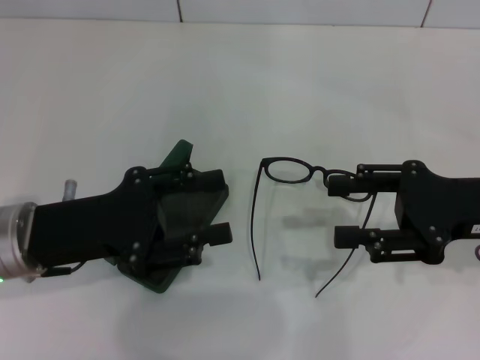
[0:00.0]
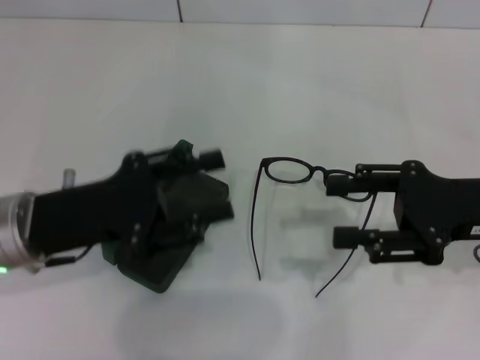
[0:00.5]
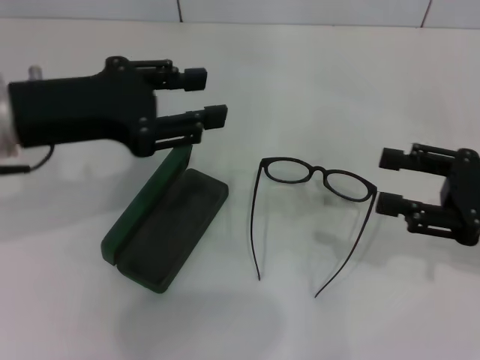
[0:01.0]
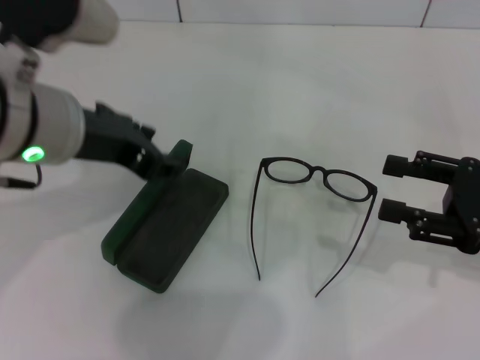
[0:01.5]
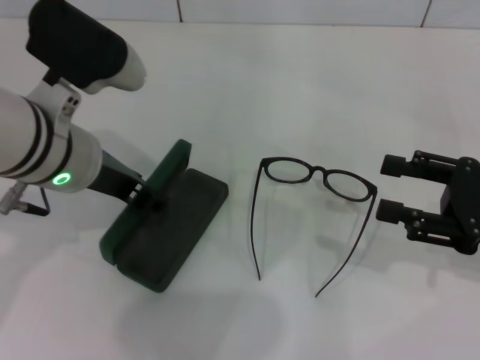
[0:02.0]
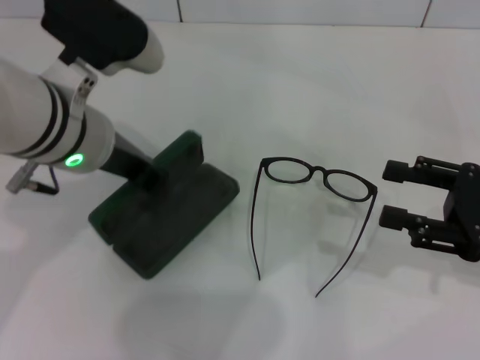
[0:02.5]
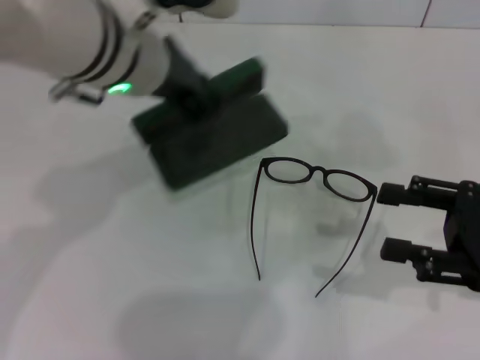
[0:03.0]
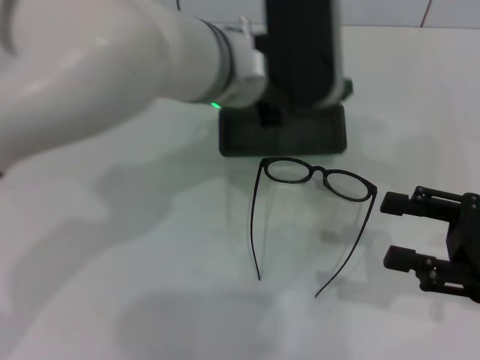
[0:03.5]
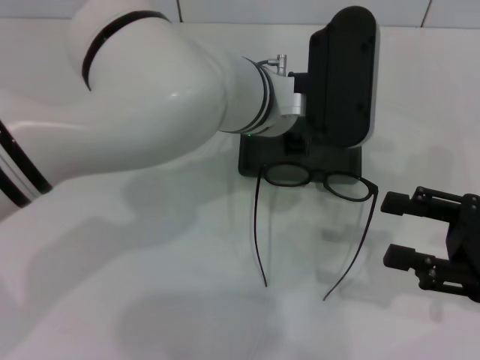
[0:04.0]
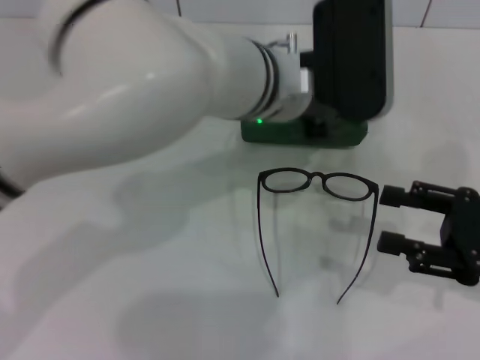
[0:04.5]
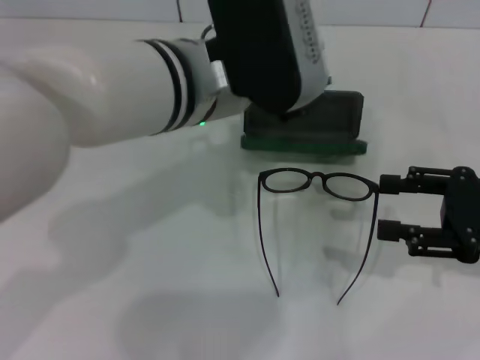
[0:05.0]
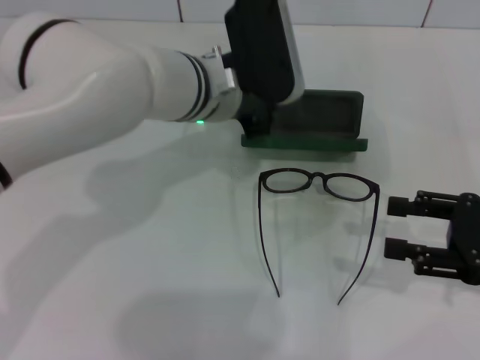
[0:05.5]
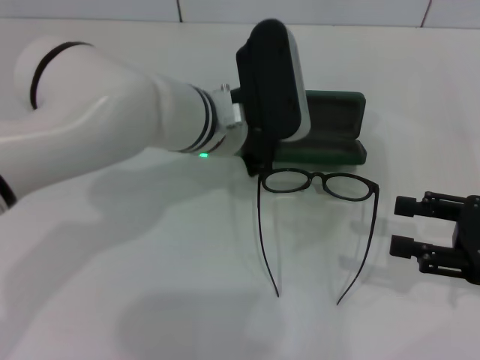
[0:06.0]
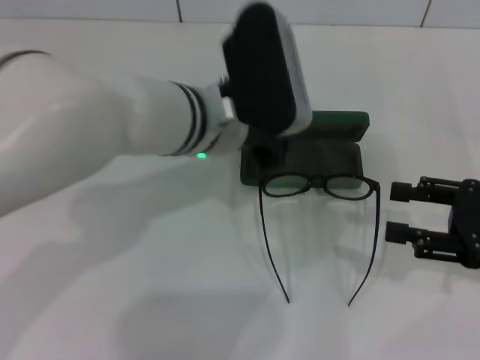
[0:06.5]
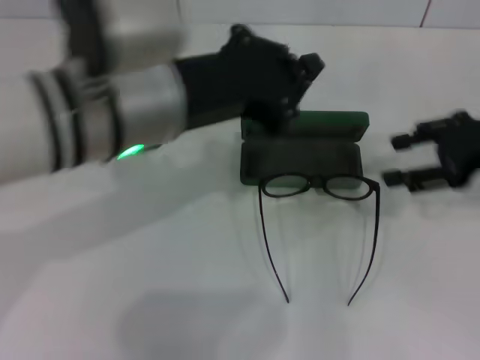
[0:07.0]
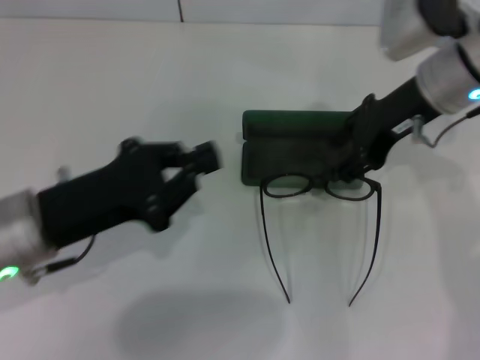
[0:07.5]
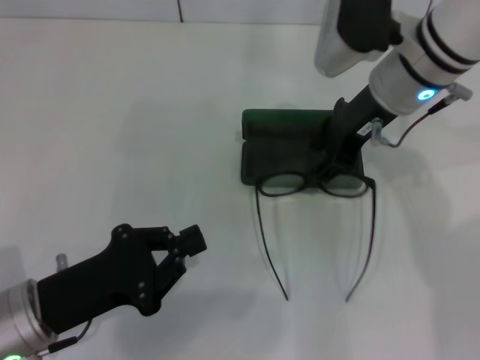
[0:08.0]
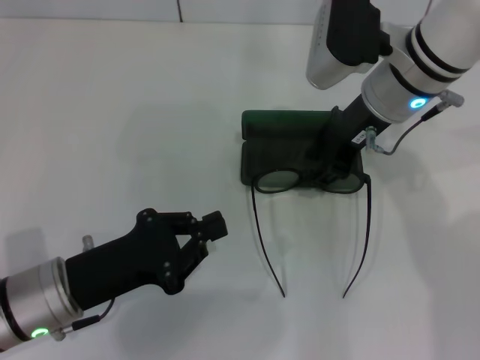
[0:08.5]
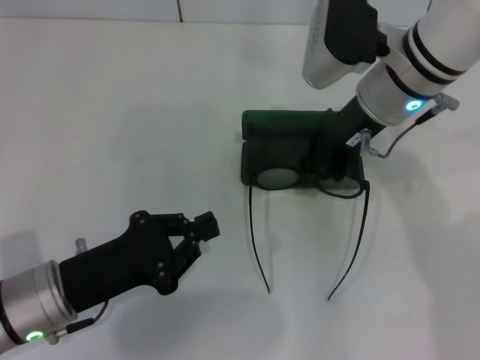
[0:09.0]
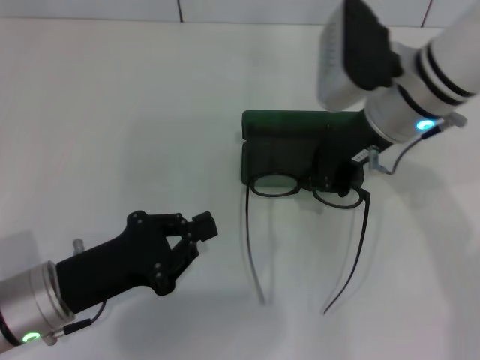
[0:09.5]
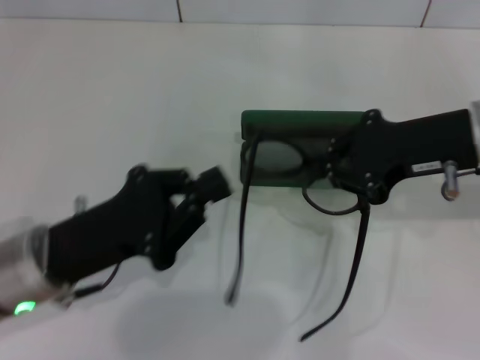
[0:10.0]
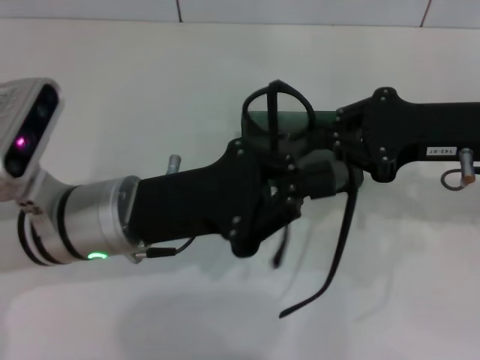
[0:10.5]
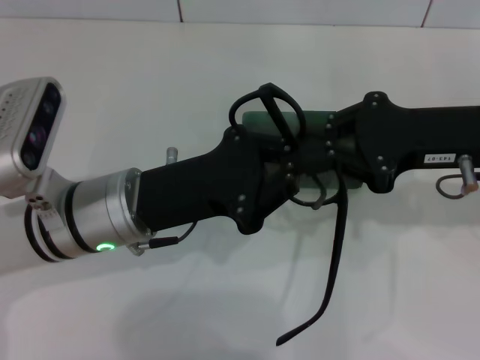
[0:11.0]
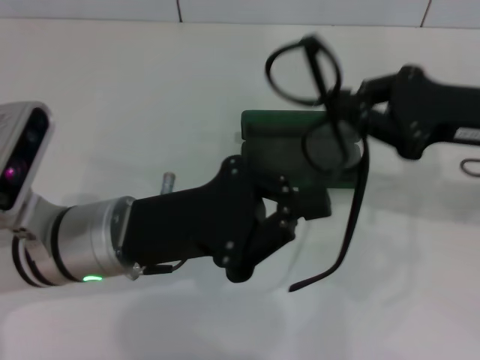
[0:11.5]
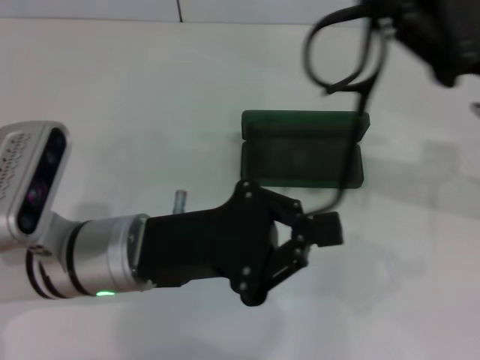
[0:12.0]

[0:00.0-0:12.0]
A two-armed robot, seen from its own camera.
Step, 0:00.0 to 0:02.0: Grab the glasses case with your left hand.
Step, 0:02.5 to 0:05.0: Place the glasses case in the center of the table with your left hand.
Step, 0:05.5 to 0:09.5: Grab the eyeglass frame with your right hand.
0:00.0 to 0:02.0: The left gripper travels upward, to the right and forward by about 10 cm. The right gripper changes place by some 5 cm.
0:02.0 to 0:04.0: The left gripper shifts some 15 cm to the right, and closes up.
0:04.0 to 0:06.0: The left gripper changes place by roughly 5 cm.
0:06.0 to 0:08.0: The right gripper goes roughly 25 cm to the left, forward and upward, while the left gripper moves backward, to the left and downward, about 25 cm.
0:08.0 to 0:10.0: The right gripper goes some 10 cm to the right and backward, and closes up. The left gripper shifts by about 5 cm.
0:10.0 to 0:12.0: The left gripper moves to the right, approximately 5 cm.

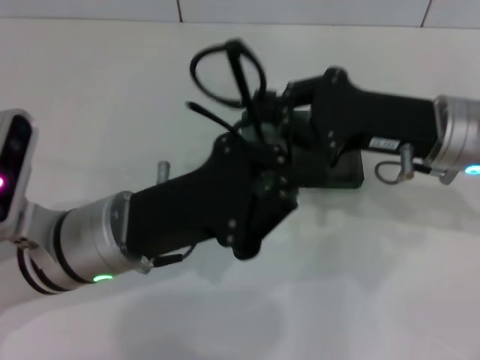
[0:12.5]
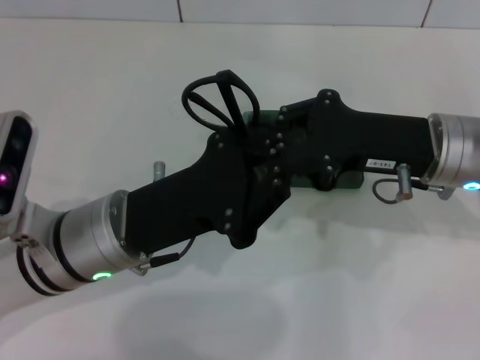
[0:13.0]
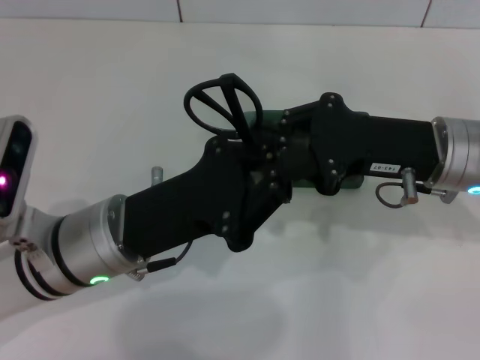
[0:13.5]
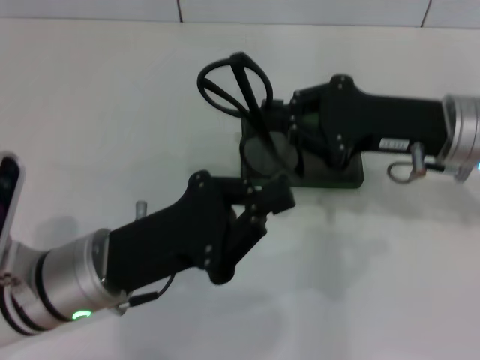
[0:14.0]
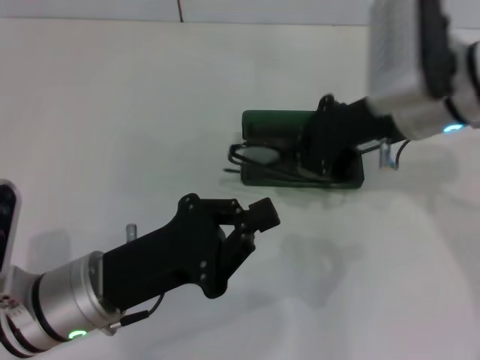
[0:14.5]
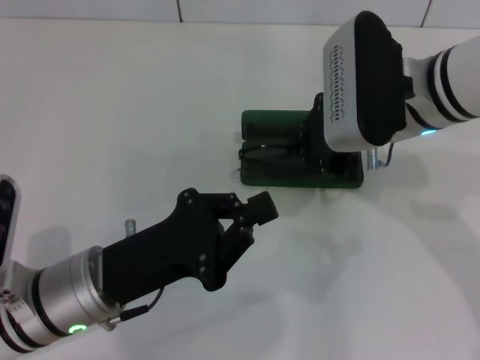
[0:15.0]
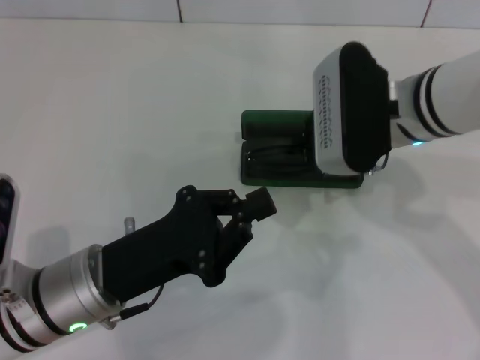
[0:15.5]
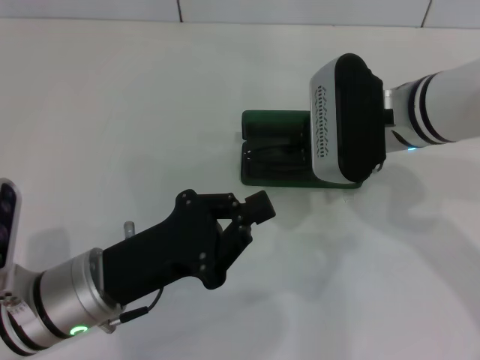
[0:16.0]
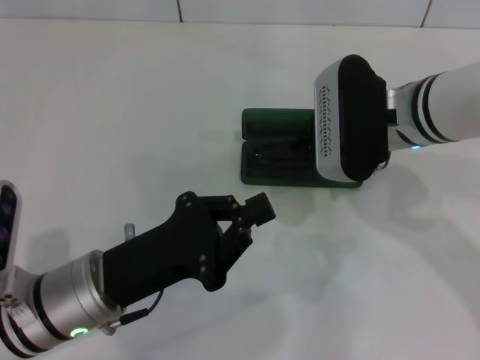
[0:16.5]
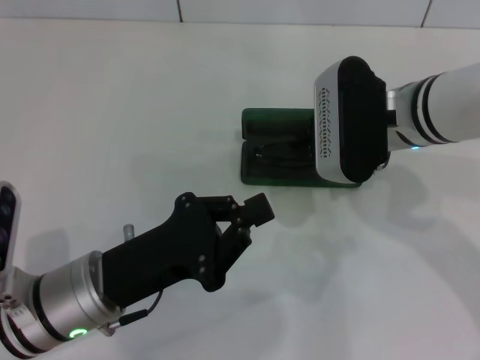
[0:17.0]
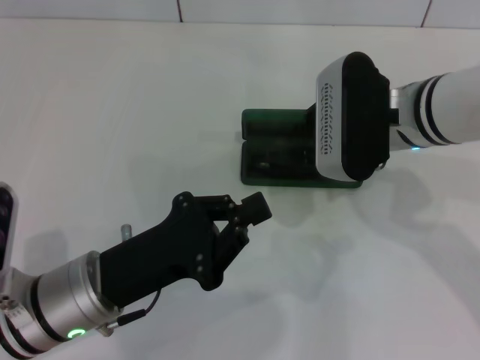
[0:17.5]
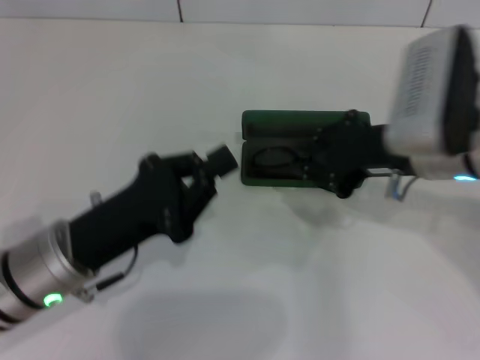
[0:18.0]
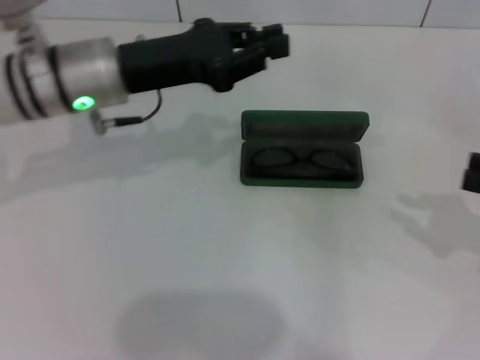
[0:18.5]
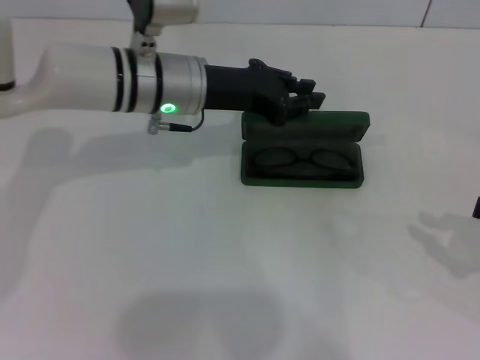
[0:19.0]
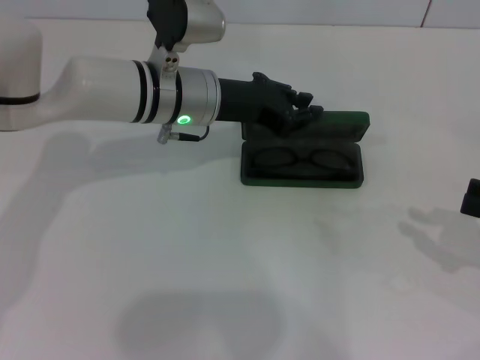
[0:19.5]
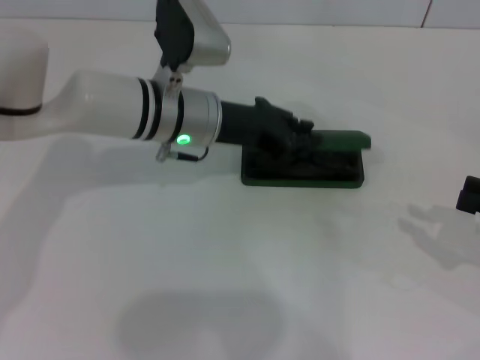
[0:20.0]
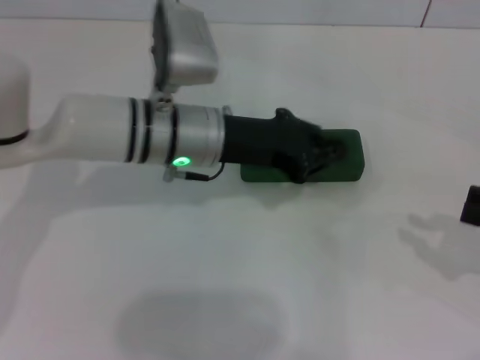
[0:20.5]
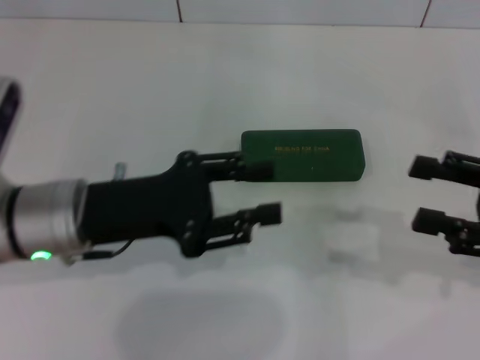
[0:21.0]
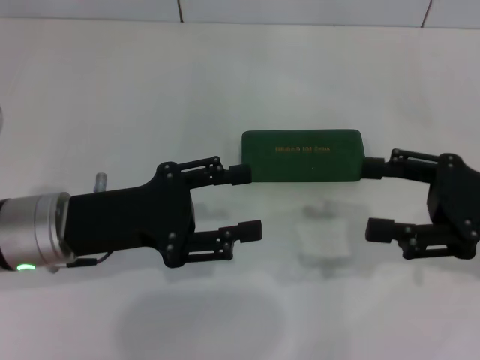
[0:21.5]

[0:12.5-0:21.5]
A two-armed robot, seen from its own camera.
Step, 0:14.0 to 0:17.5: Put the glasses into the case with your right hand.
Step, 0:18.5 to 0:21.0: Close the glasses case with your left hand.
0:12.5 to 0:14.5: The right gripper moves some 5 cm; the left gripper ends up roughly 5 cm from where it was.
0:17.0 to 0:19.5: The left gripper travels forward by approximately 20 cm. The right gripper moves to the right and backward, about 25 cm.
0:19.5 to 0:21.5: The right gripper moves to the left, roughly 10 cm, and opens its fingers. The left gripper heads backward and to the left, covering about 20 cm, and opens.

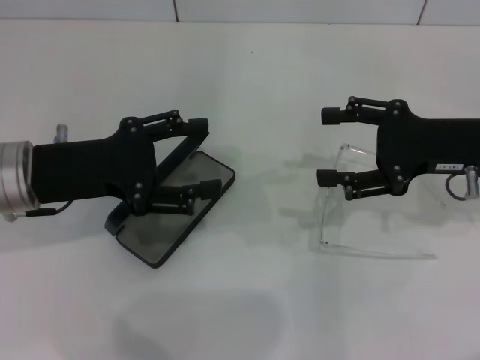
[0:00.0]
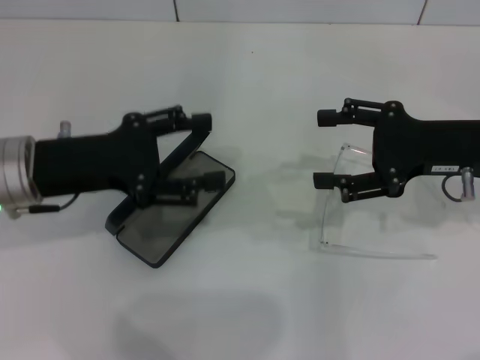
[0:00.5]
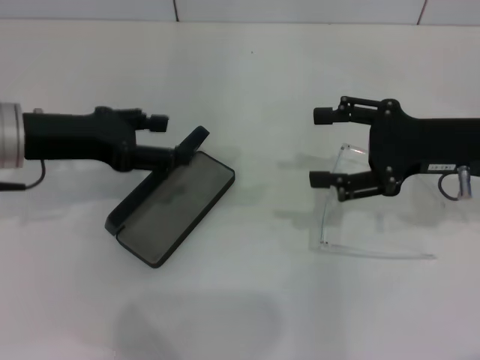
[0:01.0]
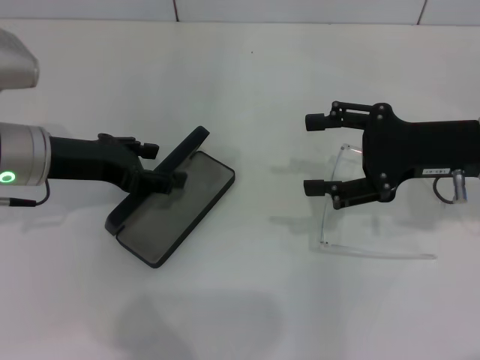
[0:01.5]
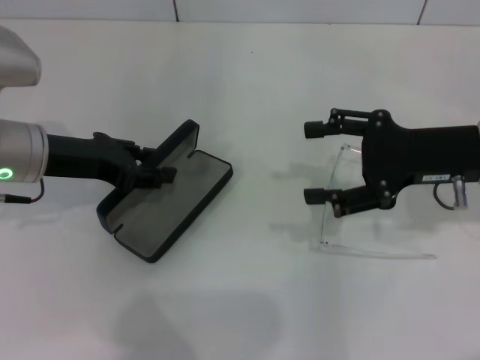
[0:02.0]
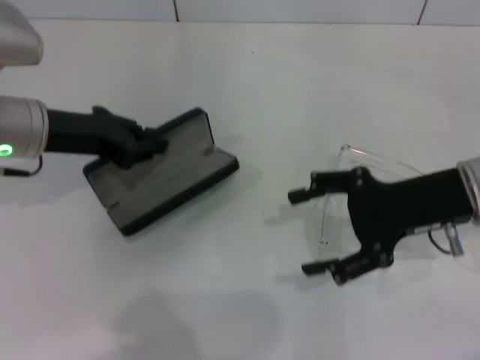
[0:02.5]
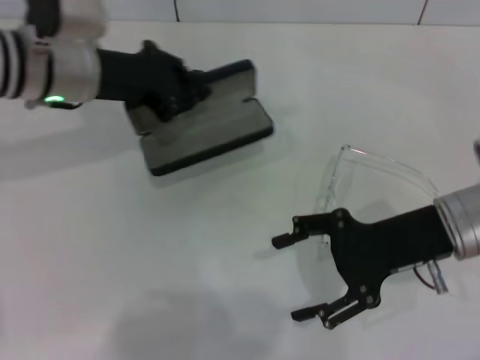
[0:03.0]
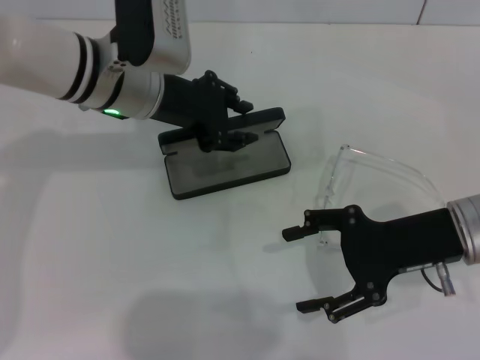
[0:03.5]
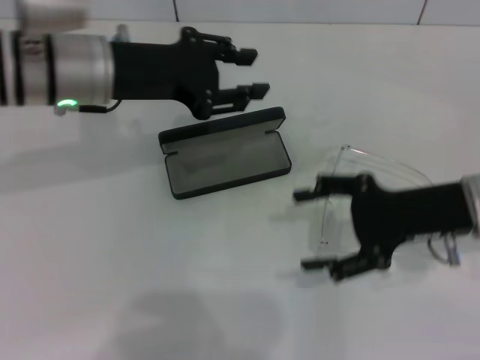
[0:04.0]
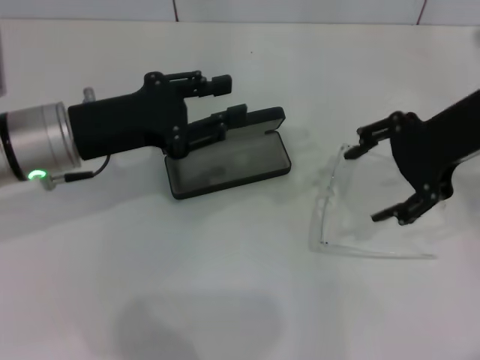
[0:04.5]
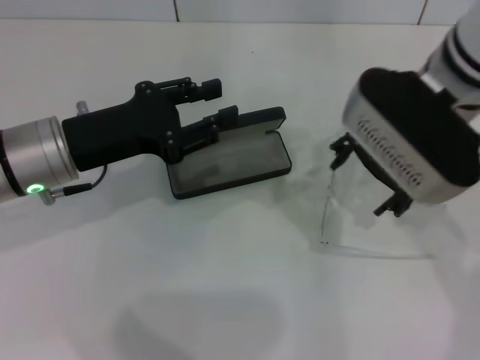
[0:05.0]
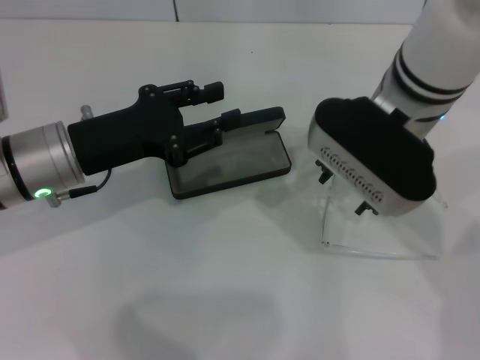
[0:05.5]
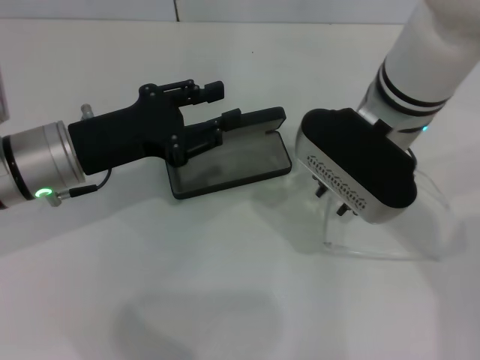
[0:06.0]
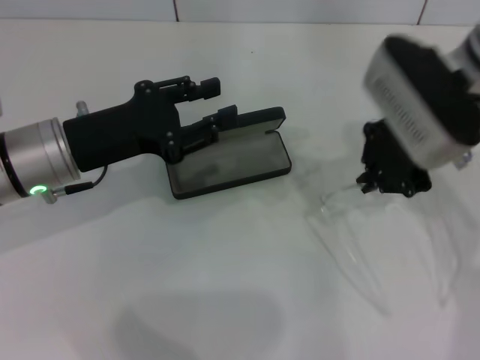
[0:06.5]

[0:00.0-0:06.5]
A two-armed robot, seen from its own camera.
Step, 0:00.0 to 0:02.0: Grab the glasses case with your left hand.
Step, 0:02.5 to 0:03.5: Place the glasses case in the center of the table with your left hand.
0:02.0 to 0:04.5: The right gripper heads upward, covering some 10 cm, while the left gripper reaches about 10 cm to the right, then returns, and closes.
0:04.5 to 0:06.5: The right gripper closes up.
